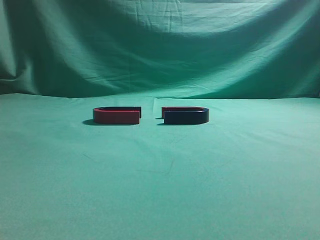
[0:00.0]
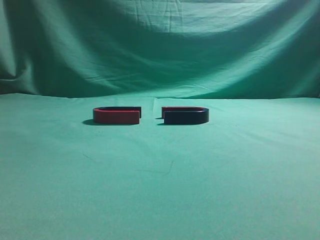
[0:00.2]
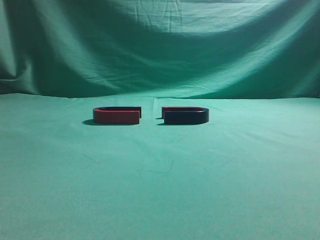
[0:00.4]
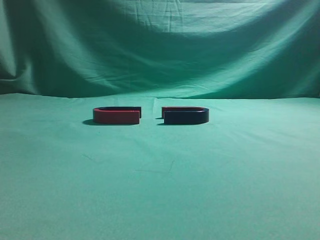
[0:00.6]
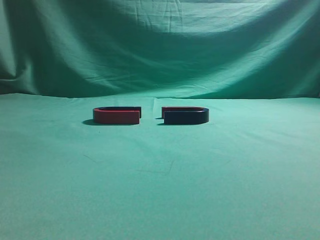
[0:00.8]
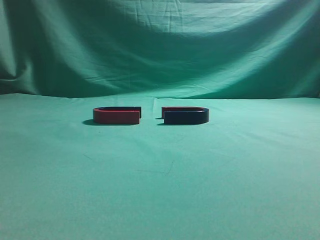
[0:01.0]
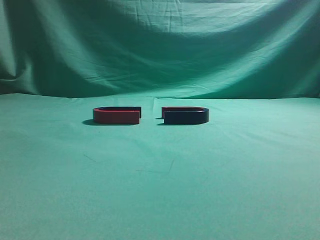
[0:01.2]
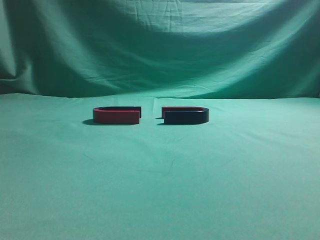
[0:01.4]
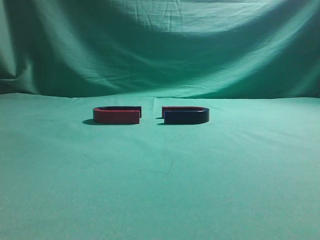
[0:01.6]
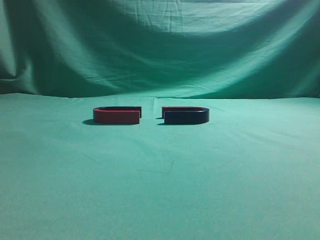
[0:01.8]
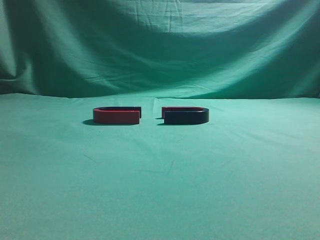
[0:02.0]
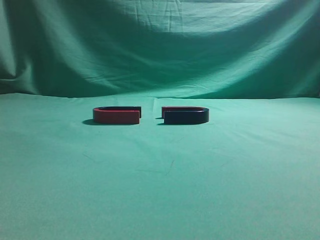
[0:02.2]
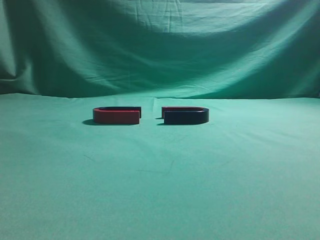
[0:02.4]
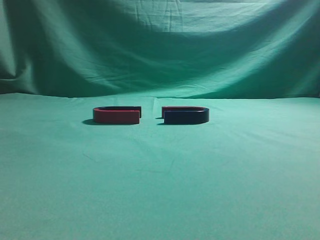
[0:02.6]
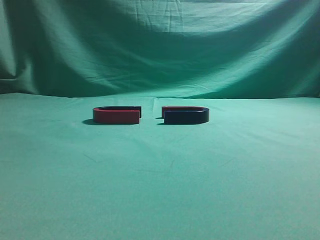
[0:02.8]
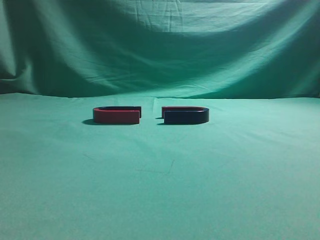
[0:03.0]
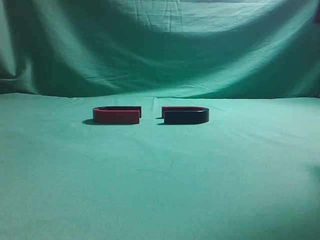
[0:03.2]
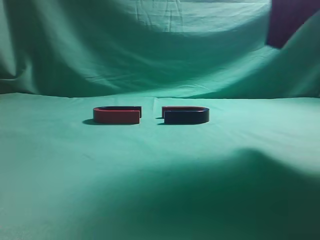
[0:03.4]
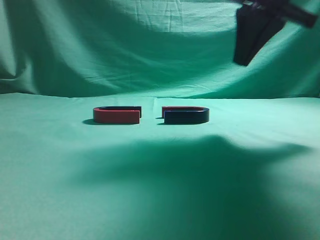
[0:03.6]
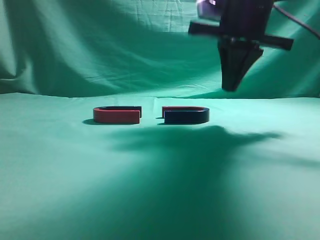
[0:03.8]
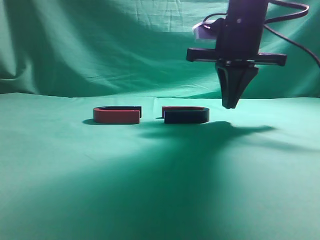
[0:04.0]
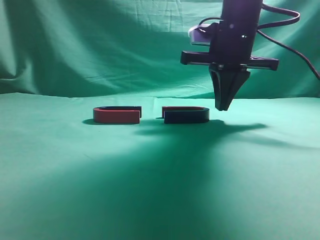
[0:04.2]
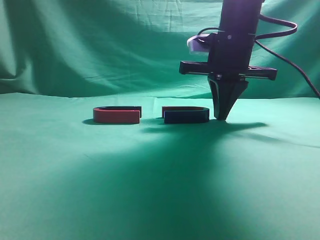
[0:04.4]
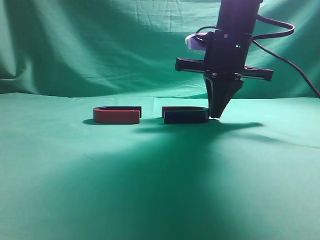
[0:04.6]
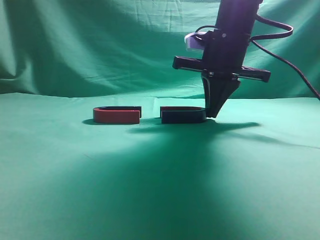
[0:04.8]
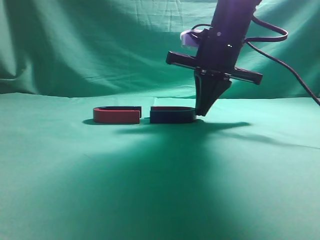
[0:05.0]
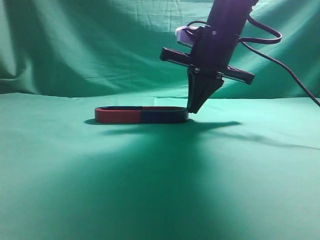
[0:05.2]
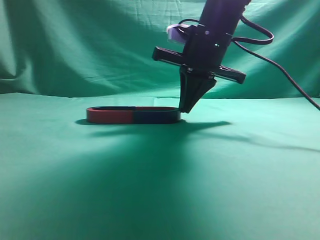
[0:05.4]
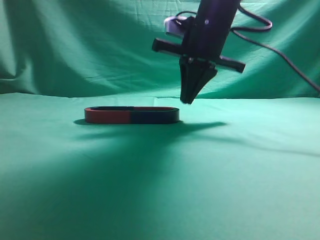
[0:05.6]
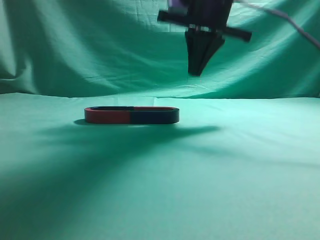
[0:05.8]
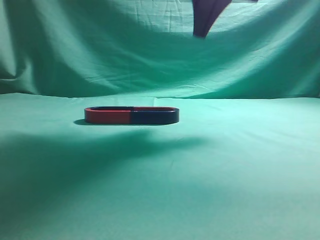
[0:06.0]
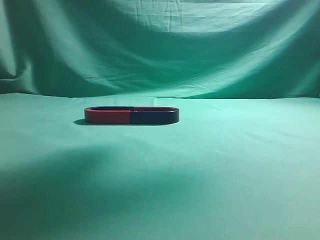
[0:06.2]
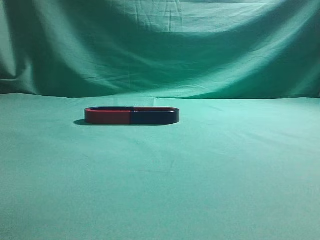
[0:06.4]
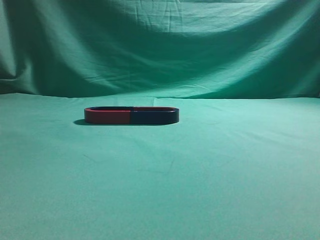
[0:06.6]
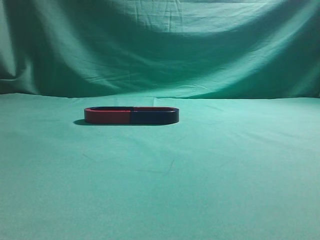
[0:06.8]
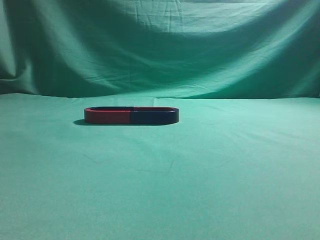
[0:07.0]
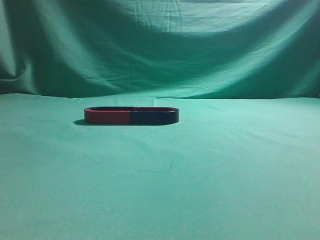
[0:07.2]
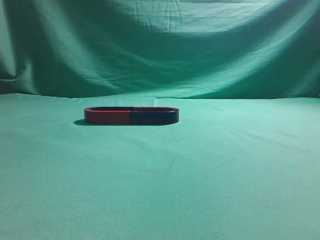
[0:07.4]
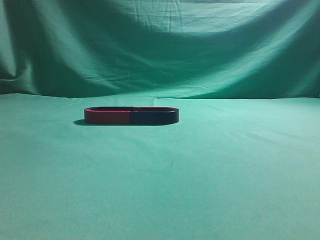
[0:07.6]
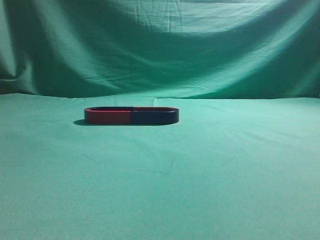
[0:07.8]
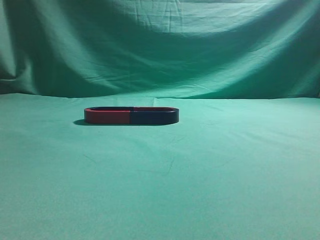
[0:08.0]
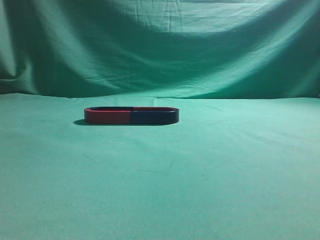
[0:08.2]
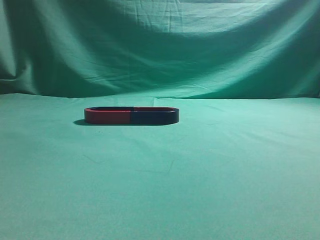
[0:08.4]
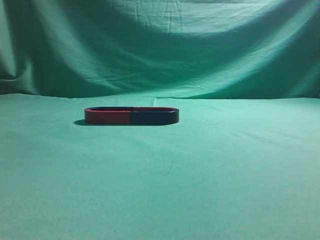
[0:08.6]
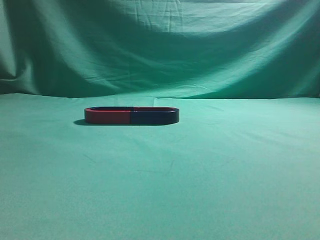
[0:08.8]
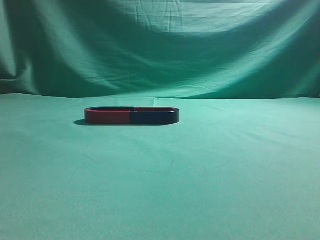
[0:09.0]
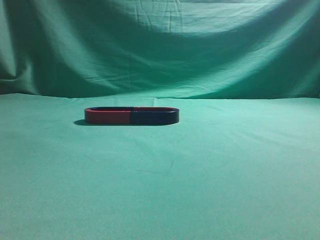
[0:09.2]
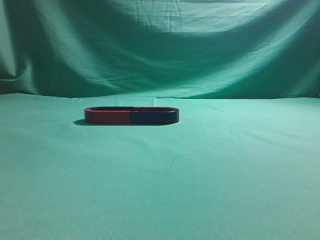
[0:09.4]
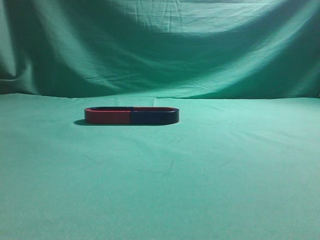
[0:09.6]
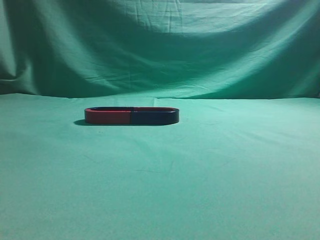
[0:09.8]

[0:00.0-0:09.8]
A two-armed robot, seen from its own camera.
Task of the whole recording: push the magnet on the table from its original position to another position.
Step, 0:00.0 to 0:05.4: Push the magnet on the right to connect the magnet on the left.
0:02.8 to 0:04.2: The right gripper shifts about 30 cm forward, to the left and downward.
0:05.6 to 0:07.0: The right gripper travels backward, upward and to the right by approximately 40 cm.
